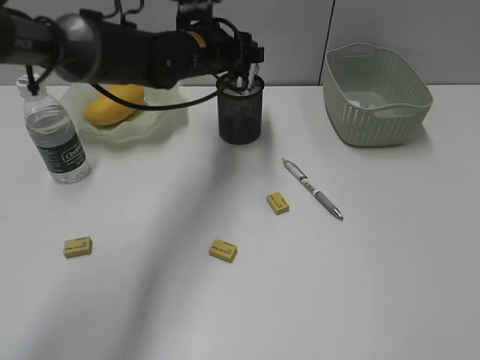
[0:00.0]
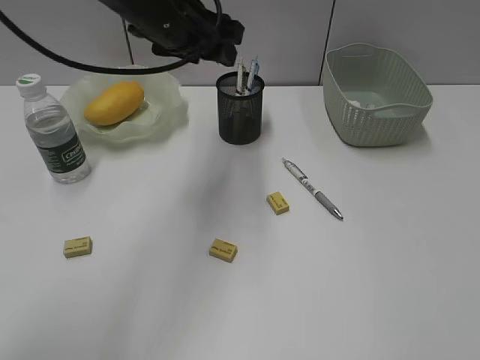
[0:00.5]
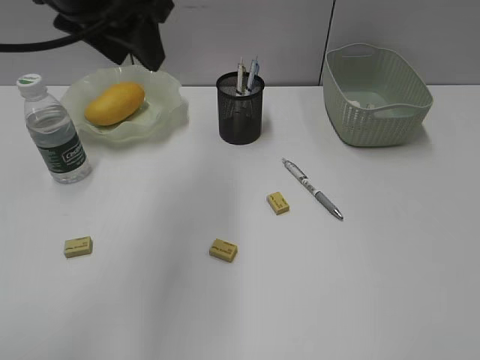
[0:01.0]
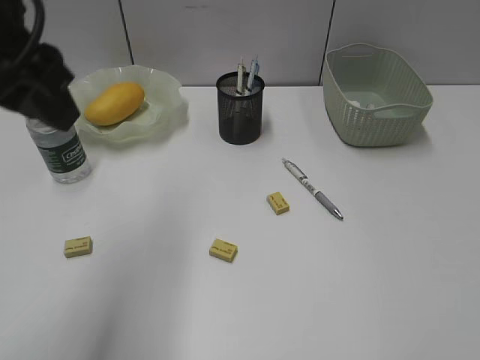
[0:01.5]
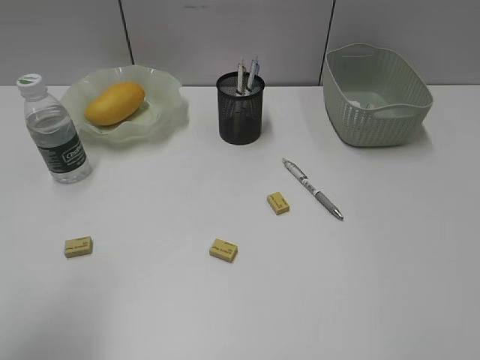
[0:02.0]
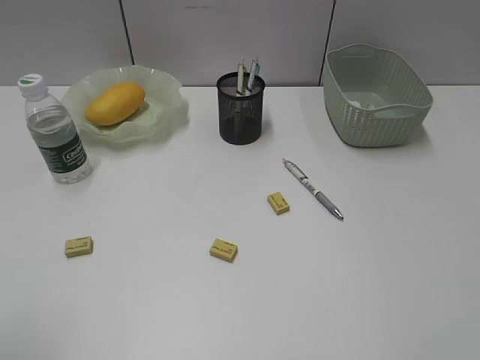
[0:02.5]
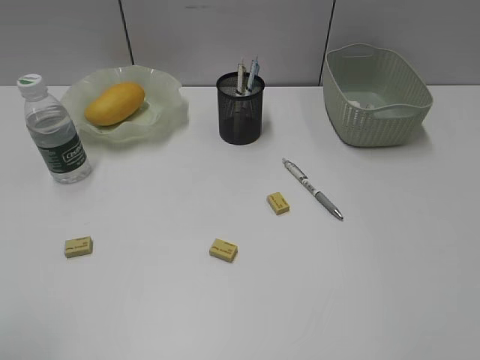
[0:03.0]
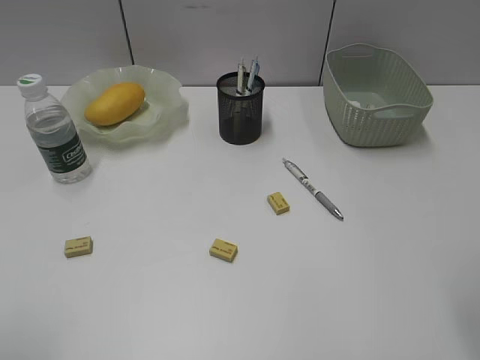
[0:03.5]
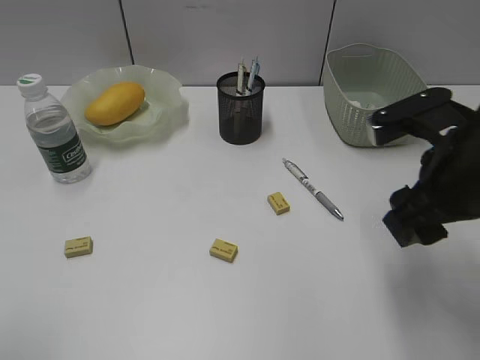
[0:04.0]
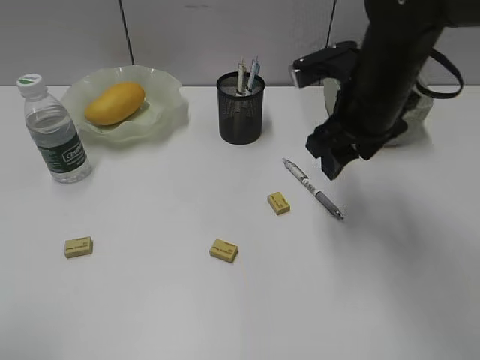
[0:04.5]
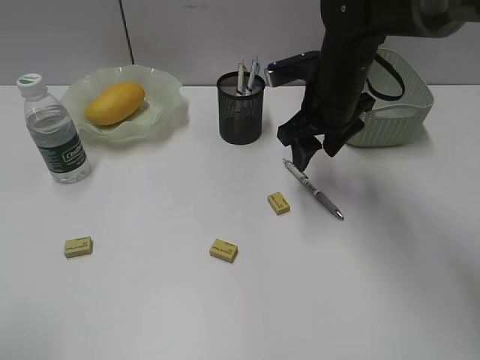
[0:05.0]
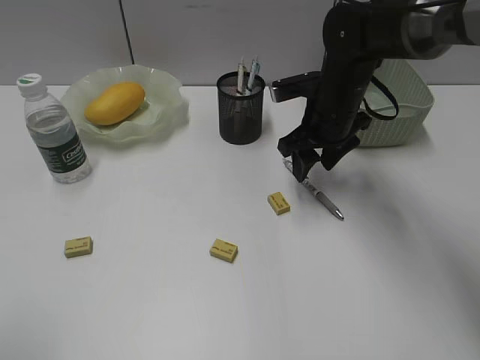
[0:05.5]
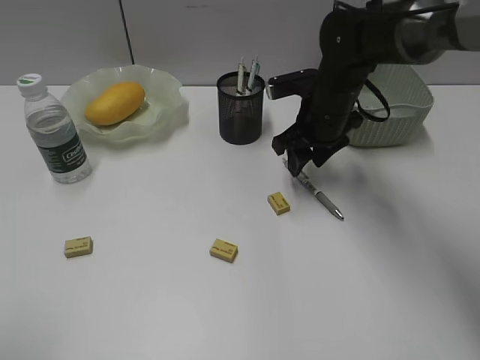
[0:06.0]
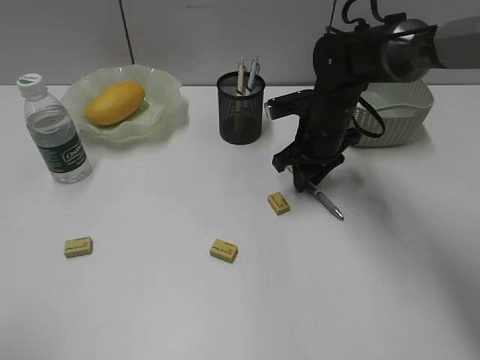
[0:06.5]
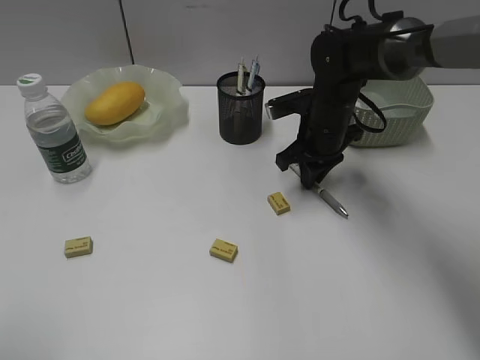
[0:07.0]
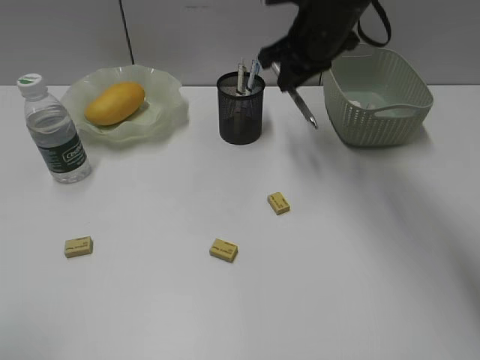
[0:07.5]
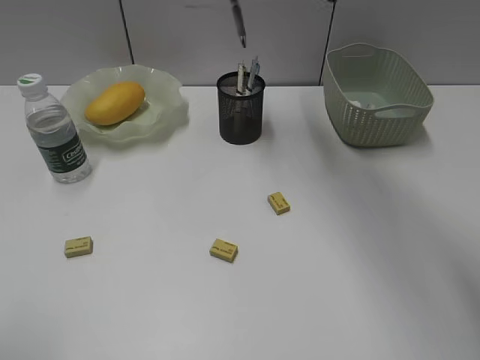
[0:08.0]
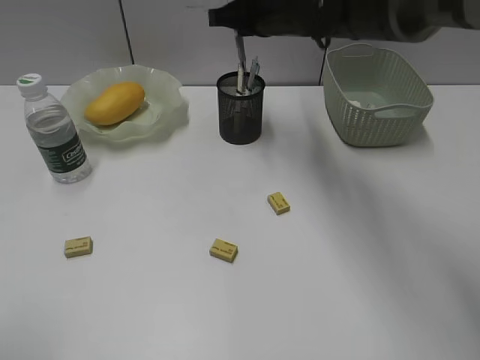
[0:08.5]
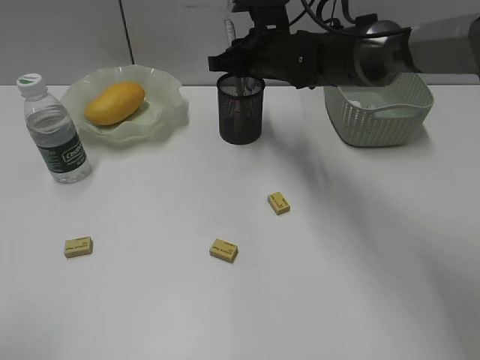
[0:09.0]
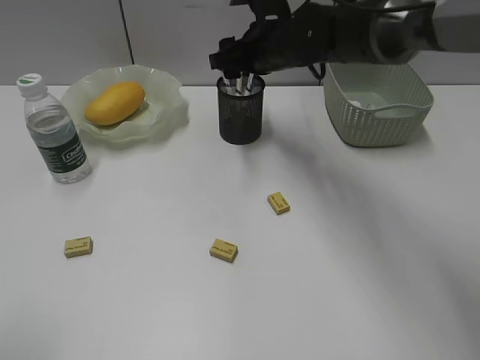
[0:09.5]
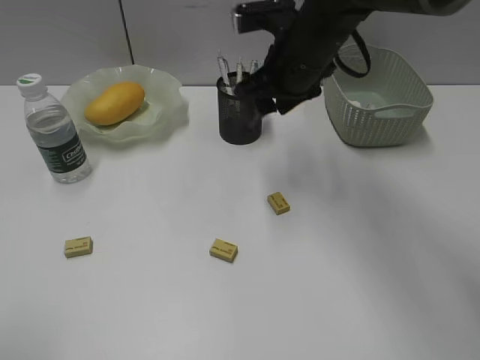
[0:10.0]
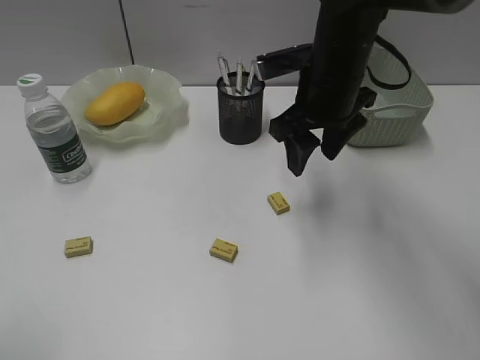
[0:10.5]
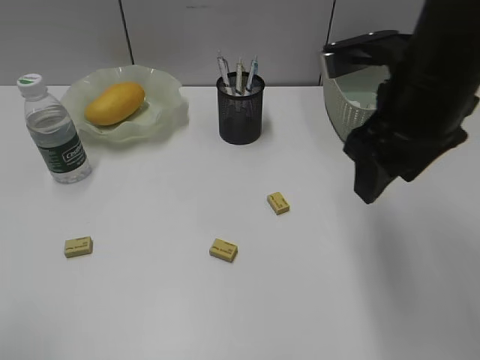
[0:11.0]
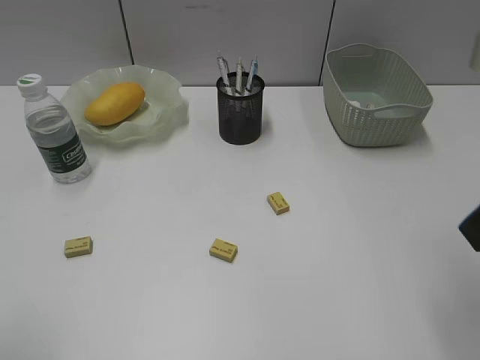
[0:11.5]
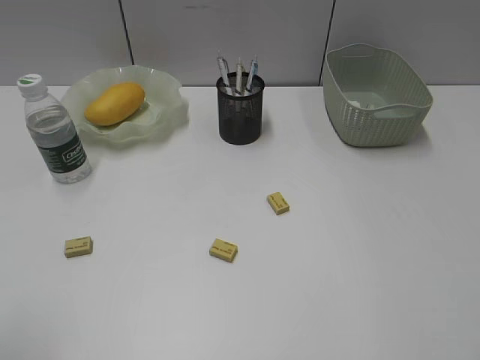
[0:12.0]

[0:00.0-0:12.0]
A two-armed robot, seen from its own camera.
Step, 0:00.5 to 0:07.0: Grasp the gray pen with right gripper.
Step, 0:07.5 to 0:09.5: Place the gray pen in pen holder with right gripper.
0:00.0 to 0:02.0: The left gripper goes roughly 40 cm backward and to the left.
0:02.0 to 0:04.0: The right gripper heads forward and to the left, covering approximately 20 cm, while the left gripper shifts about 5 cm backward.
0:04.0 to 0:06.0: The right gripper heads forward, downward and to the left, covering some 20 cm.
0:06.0 to 0:08.0: The right gripper is displaced upward by some 15 cm, and closes.
0:08.0 to 0:10.0: The right gripper travels downward and backward by about 10 cm, and opens up.
0:10.0 to 0:12.0: The right gripper heads backward and to the right, covering about 40 cm.

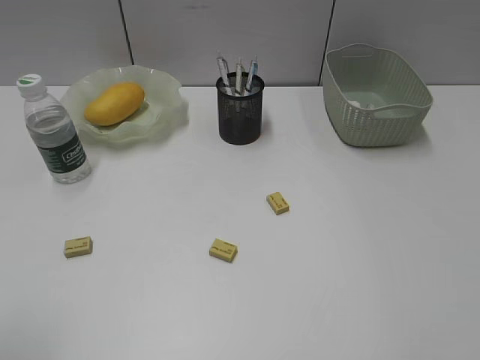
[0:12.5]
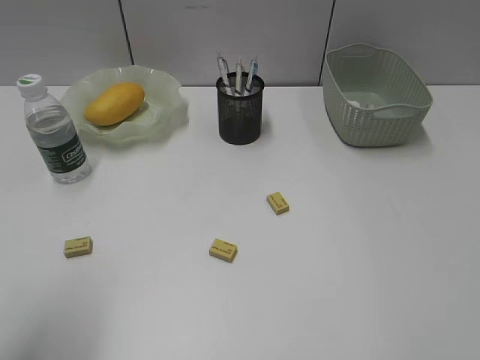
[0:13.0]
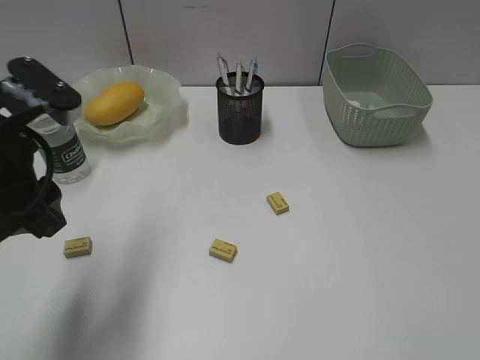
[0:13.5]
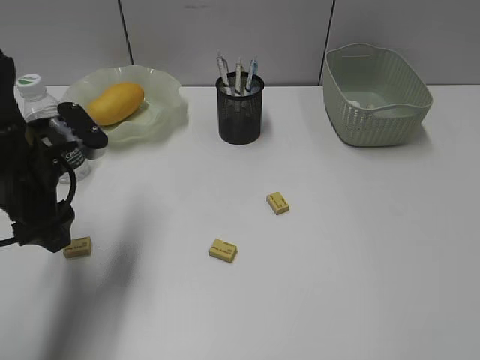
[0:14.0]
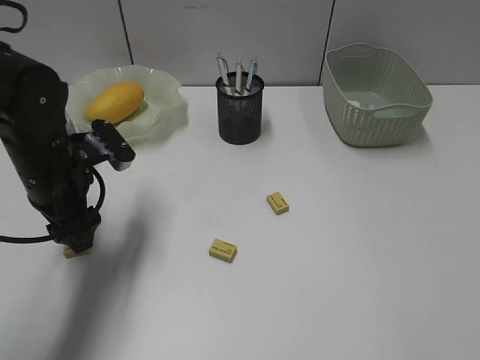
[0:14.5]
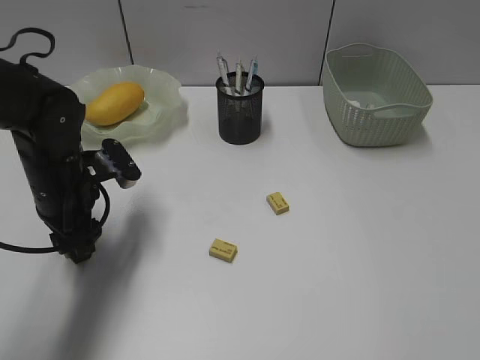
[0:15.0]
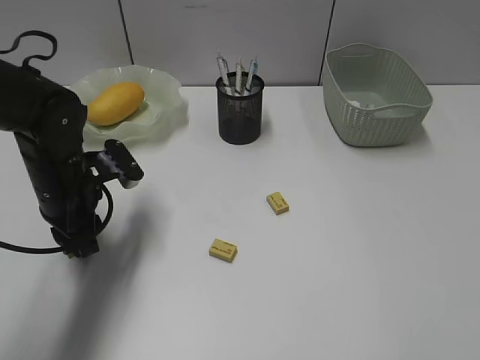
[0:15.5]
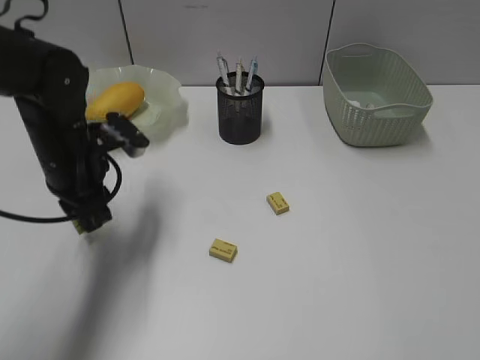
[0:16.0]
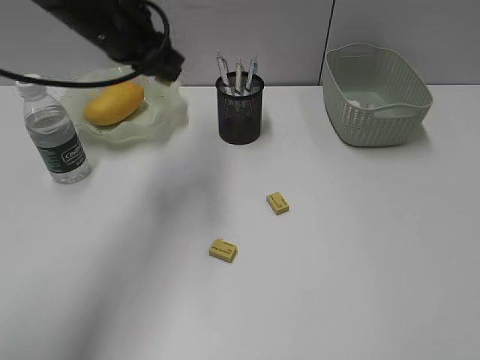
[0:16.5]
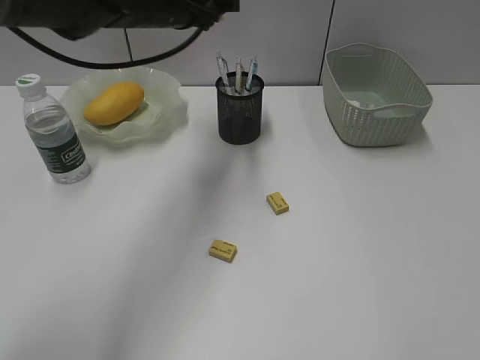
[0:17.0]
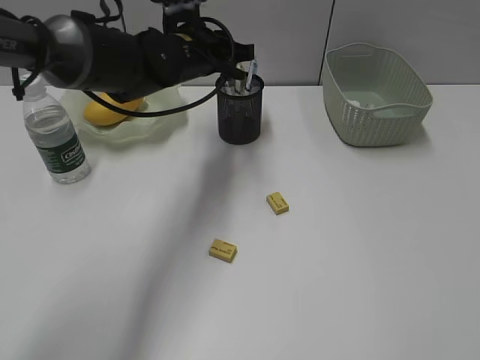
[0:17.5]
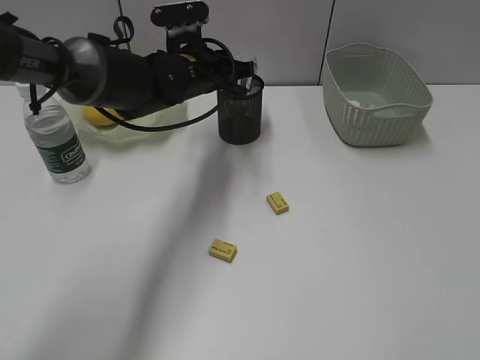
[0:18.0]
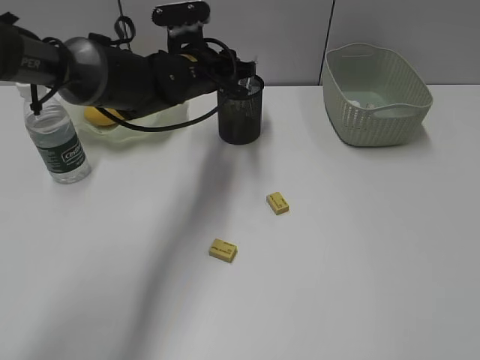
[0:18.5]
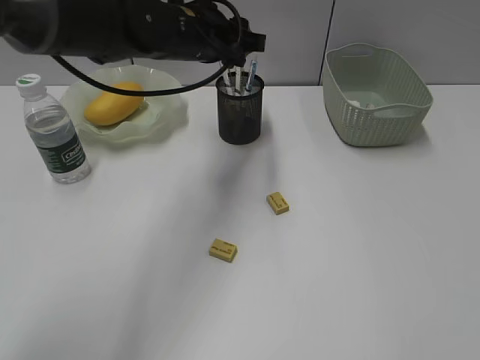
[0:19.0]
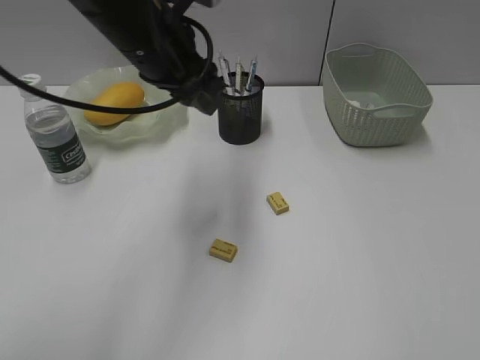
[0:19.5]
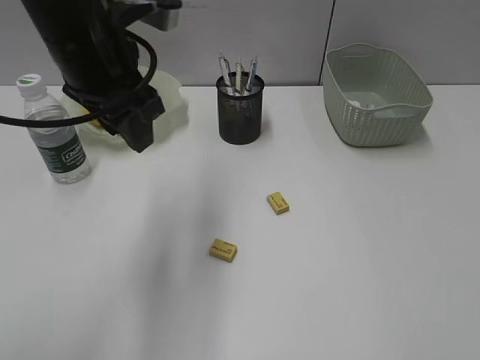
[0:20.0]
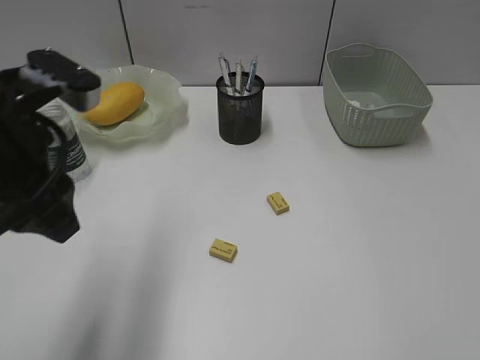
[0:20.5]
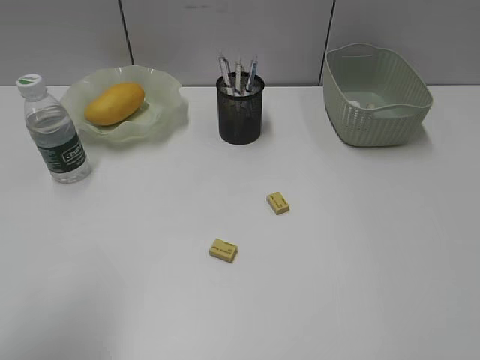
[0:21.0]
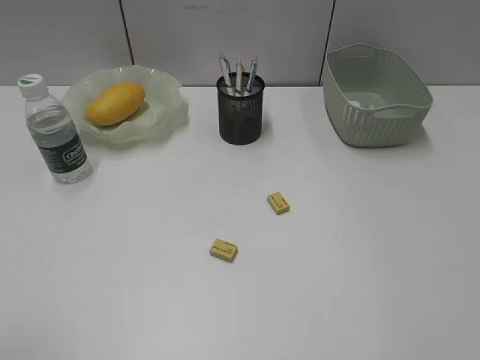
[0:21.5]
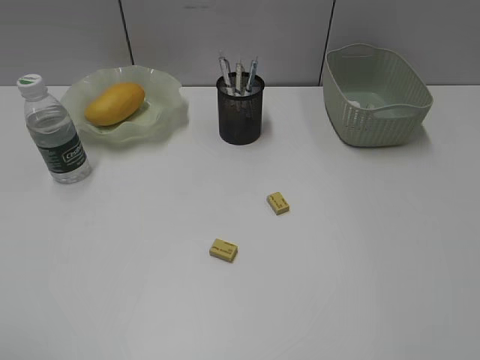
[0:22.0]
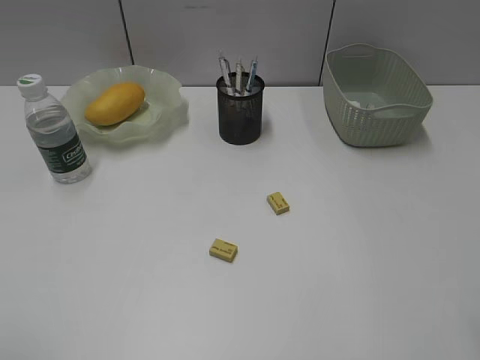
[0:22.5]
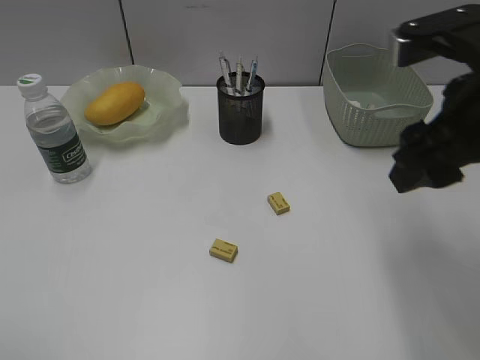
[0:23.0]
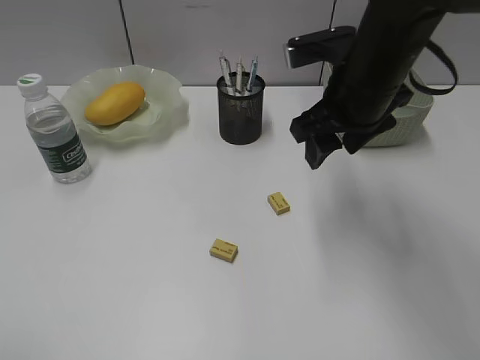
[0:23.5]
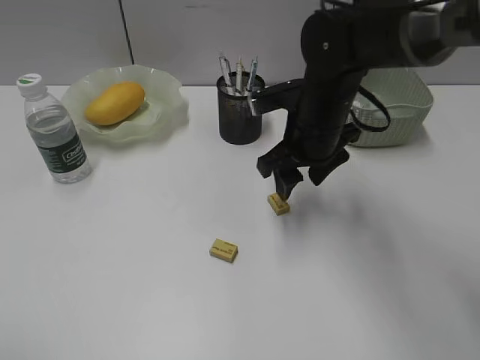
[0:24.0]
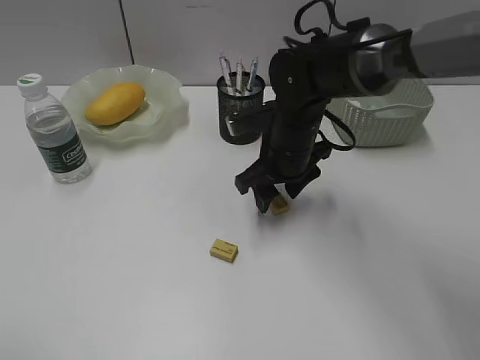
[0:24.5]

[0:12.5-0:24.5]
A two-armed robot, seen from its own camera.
Step, 0:12.5 to 0:15.5: Grasp the eraser with left gripper.
Step, 0:16.0 to 0:18.5: Place the eraser in pen holder with left gripper.
0:12.5 to 0:14.5: The left gripper shifts about 30 cm forward, downward and to the right.
0:14.5 to 0:16.5: The left gripper heads upward, forward and to the right, covering about 15 cm, and closes.
0:16.5 to 0:18.5: The left gripper moves downward and to the right, approximately 15 cm.
0:18.5 to 0:20.5: The left gripper travels backward, to the left and upward by about 25 cm.
0:20.5 to 0:22.5: The left gripper is displaced backward and to the left by about 25 cm.
0:22.5 to 0:24.5: The right gripper heads forward, to the left and downward, covering about 40 cm.

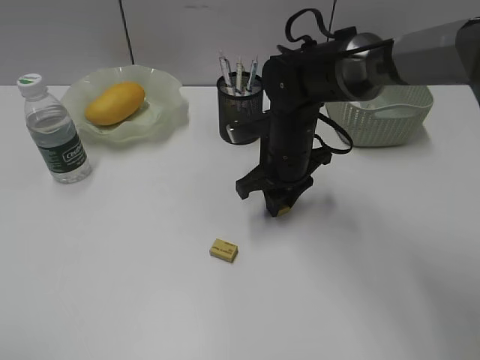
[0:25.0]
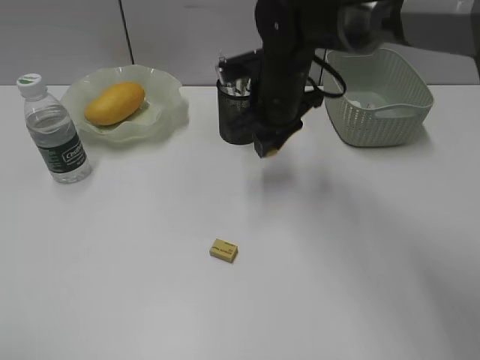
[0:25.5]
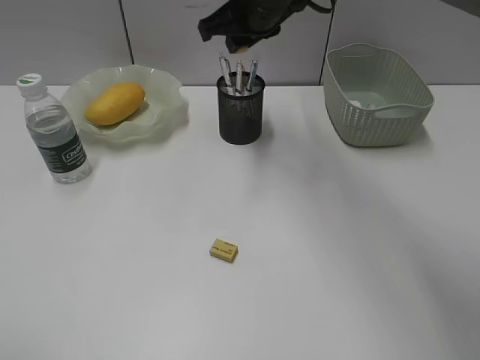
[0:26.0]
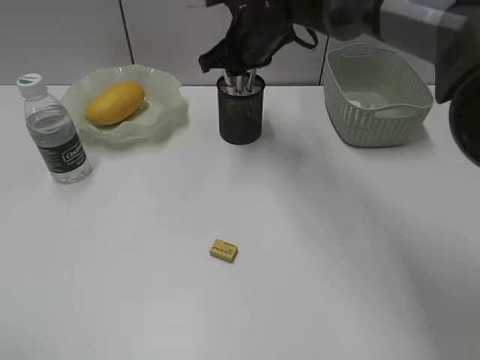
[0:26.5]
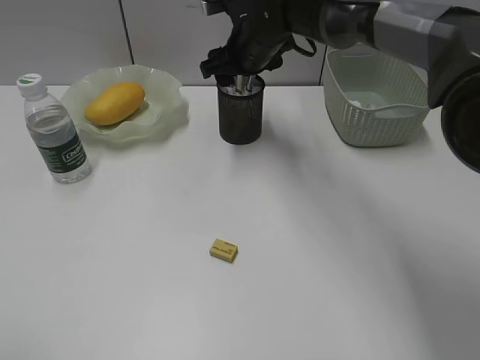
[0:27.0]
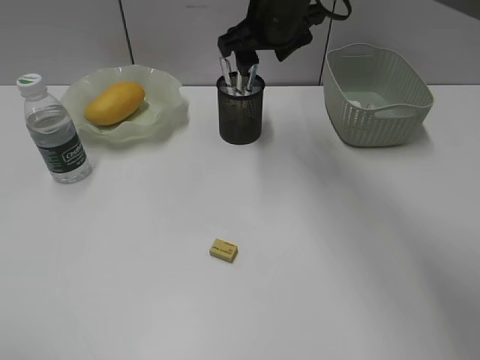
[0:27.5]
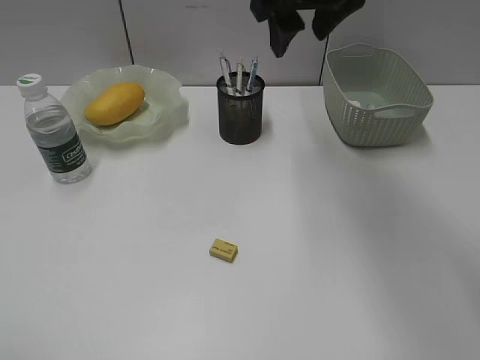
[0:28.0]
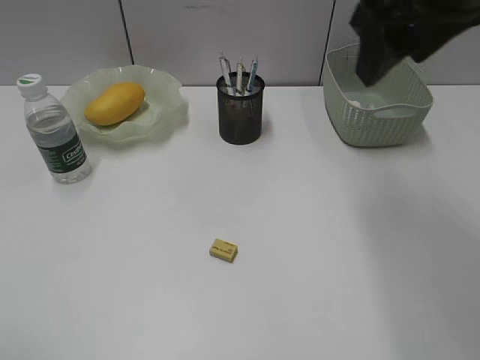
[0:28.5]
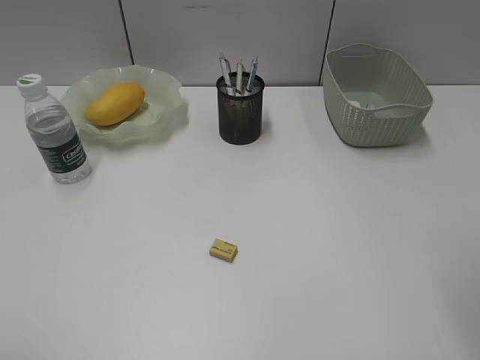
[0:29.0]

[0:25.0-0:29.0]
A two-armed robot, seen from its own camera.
Step, 0:25.5 to 0:27.0: Place the eraser in pen holder with right gripper.
0:25.0 to 0:27.0: The right gripper is displaced forward and upward by approximately 15 cm, and opens.
0:27.0 to 0:29.0: The right gripper moves backward, to the right and upward, about 40 cm.
